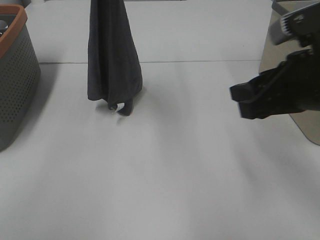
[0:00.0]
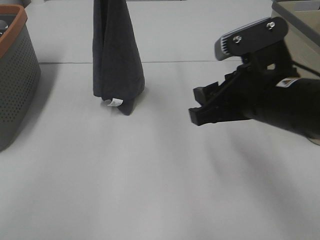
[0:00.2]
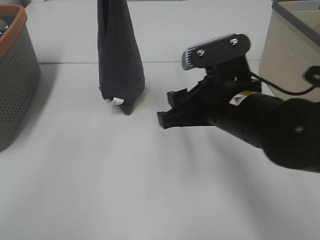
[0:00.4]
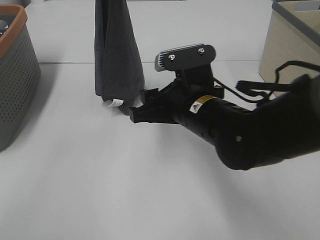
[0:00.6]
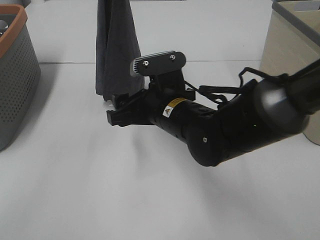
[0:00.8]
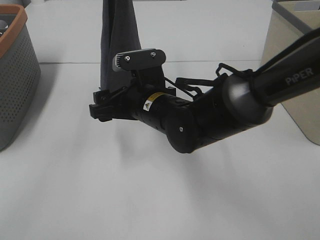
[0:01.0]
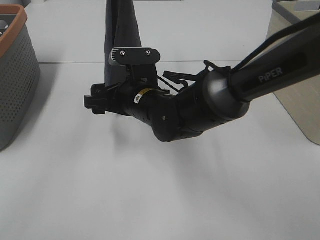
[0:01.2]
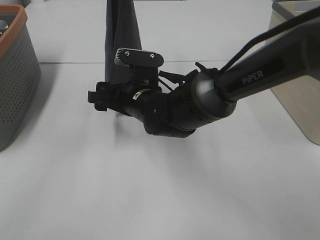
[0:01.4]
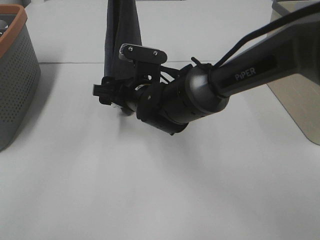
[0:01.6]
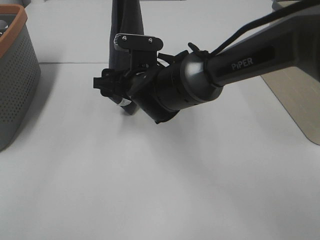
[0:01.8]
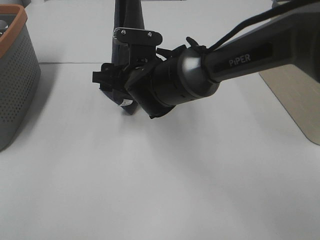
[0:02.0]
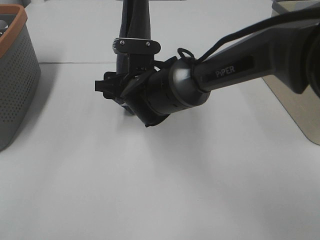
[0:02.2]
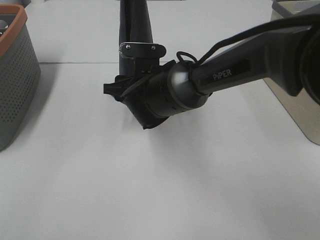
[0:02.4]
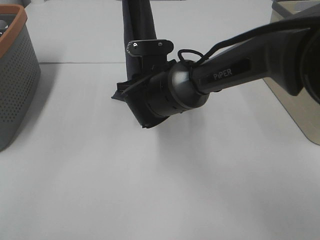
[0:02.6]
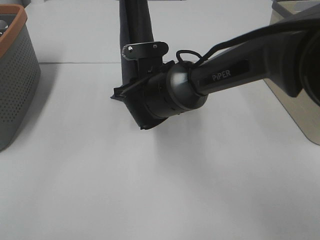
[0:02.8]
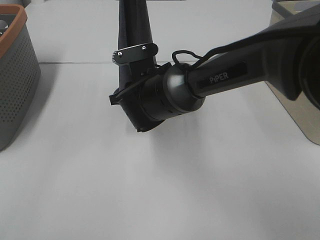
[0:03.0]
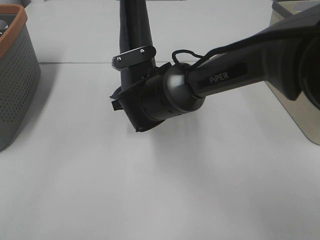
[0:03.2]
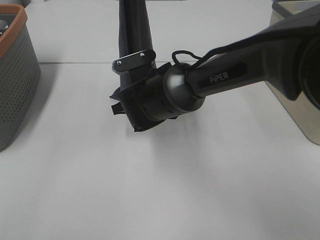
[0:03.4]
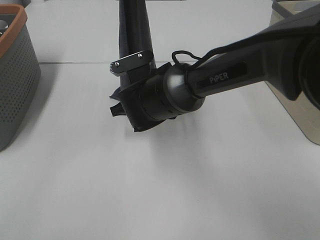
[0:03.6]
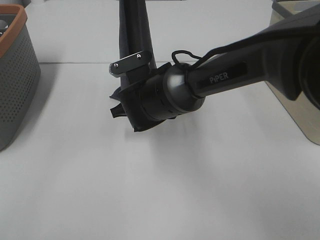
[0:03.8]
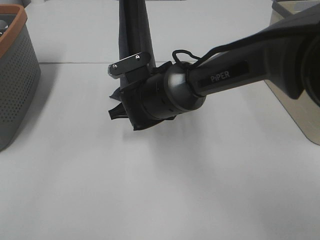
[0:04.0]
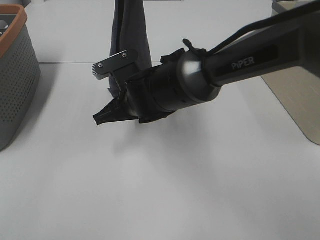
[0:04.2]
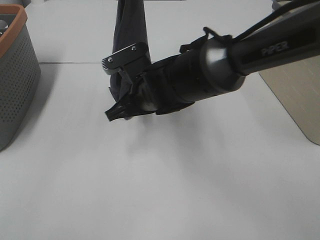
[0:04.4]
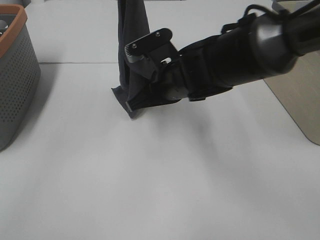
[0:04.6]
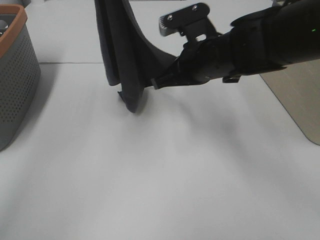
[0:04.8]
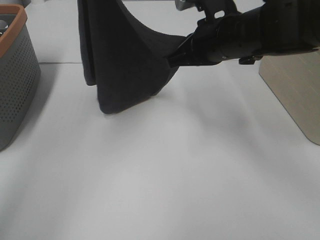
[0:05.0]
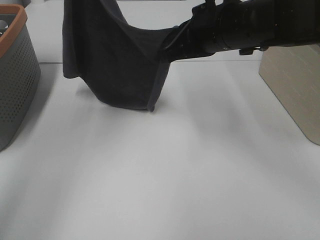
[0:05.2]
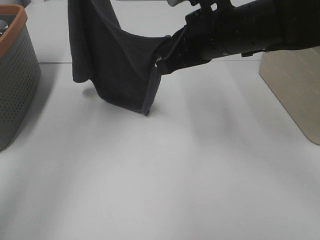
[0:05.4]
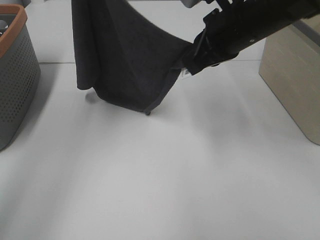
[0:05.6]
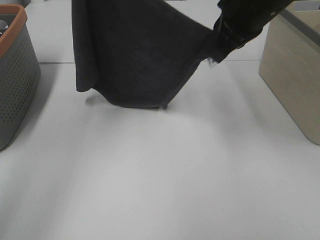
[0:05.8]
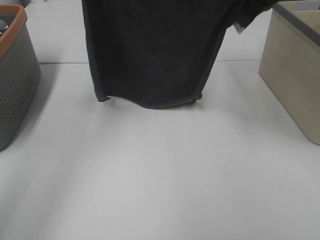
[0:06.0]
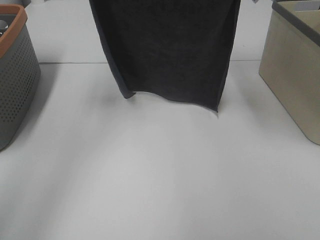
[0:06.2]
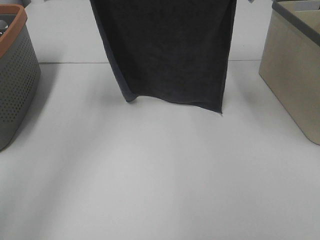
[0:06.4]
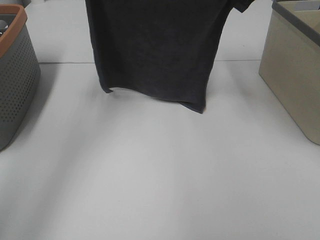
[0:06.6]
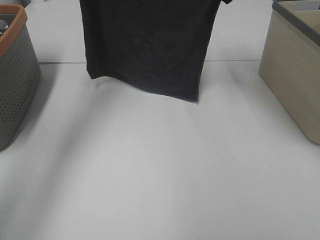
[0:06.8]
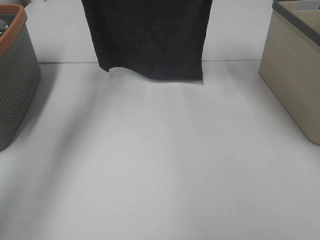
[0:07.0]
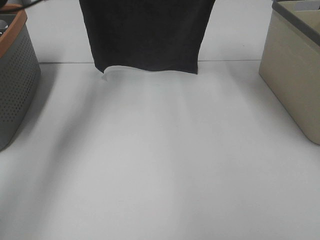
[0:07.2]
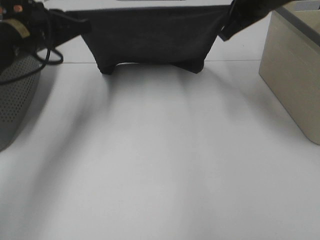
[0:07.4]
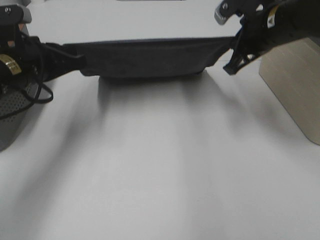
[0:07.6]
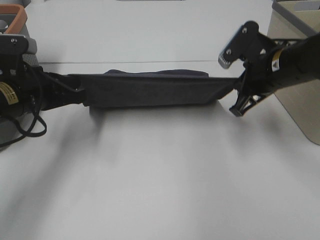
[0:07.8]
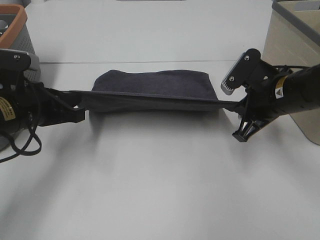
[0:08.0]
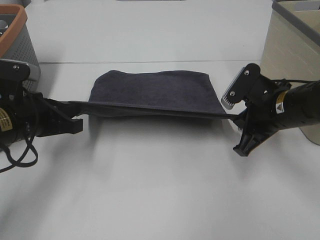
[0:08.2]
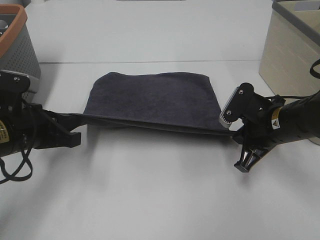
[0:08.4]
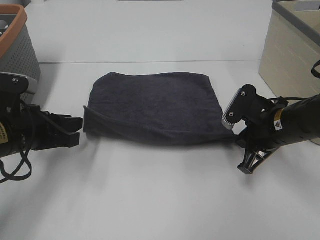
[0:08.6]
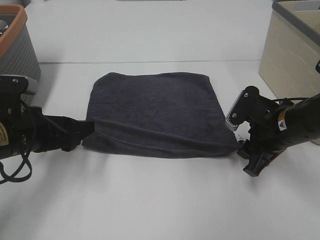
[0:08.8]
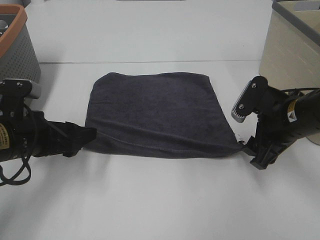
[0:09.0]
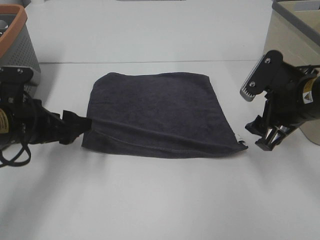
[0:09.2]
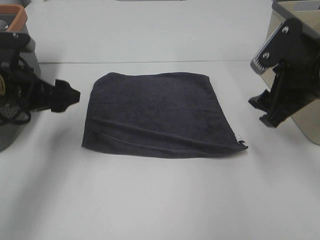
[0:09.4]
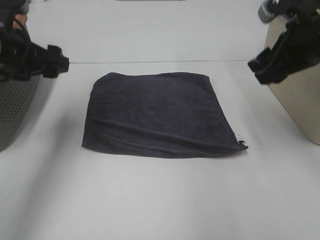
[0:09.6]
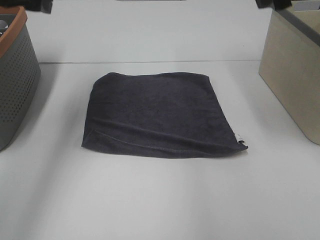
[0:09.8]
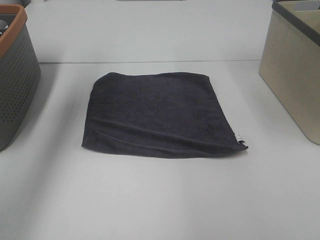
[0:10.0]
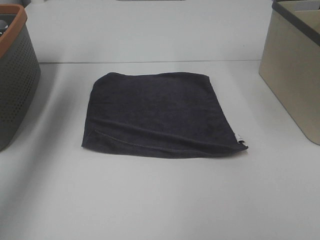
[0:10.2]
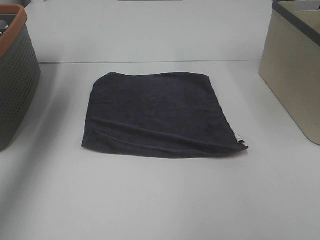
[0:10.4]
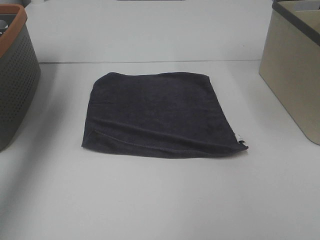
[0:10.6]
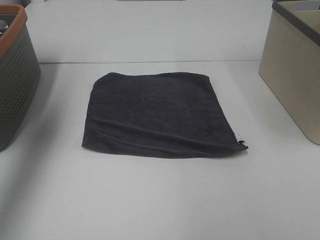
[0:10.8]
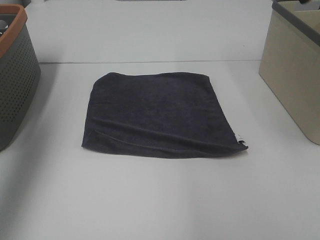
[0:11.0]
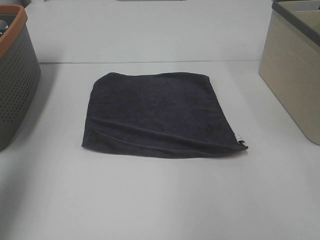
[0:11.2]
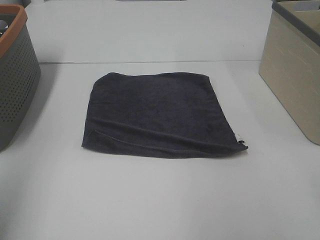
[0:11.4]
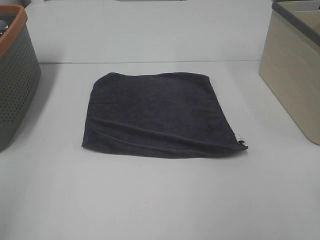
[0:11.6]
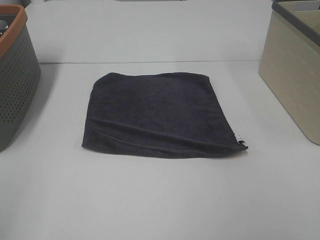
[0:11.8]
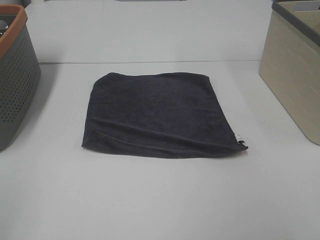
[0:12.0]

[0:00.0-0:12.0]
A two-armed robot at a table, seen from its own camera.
Task of the whole recording: Remove the towel and place it.
Step, 0:00.0 to 0:02.8: Right hand: grab a corner of the grey towel and straighten it.
Step, 0:03.0 to 0:04.6: Right hand: spread the grey towel flat on the table.
0:00.0 to 0:01.6: The right gripper is displaced to the left, forward and downward by roughly 25 cm.
0:03.0 to 0:04.4: The right gripper closes.
0:04.4 to 0:06.0: The right gripper shifts some 25 cm upward and to the right. Meanwhile the left gripper shifts roughly 15 cm to the left.
0:06.0 to 0:07.6: The left gripper travels downward by approximately 20 cm. Meanwhile the right gripper moves downward, some 10 cm.
0:07.6 to 0:09.0: The right gripper moves downward and backward, some 15 cm, and opens up; the left gripper goes about 10 cm backward and downward, and opens up.
0:09.0 to 0:10.4: The right gripper travels upward by about 30 cm; the left gripper moves upward and forward, approximately 35 cm.
0:10.4 to 0:12.0: The left gripper goes some 35 cm backward.

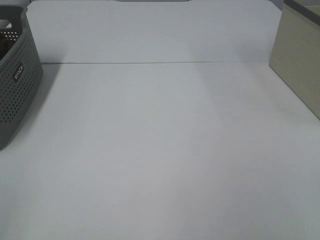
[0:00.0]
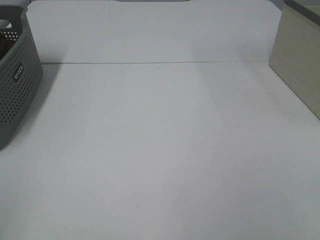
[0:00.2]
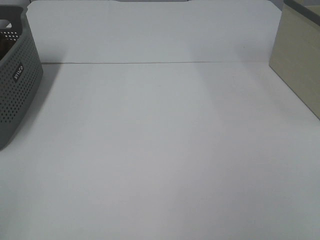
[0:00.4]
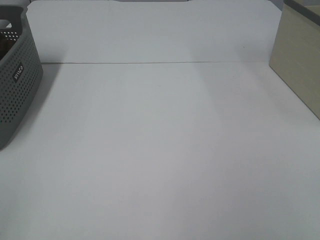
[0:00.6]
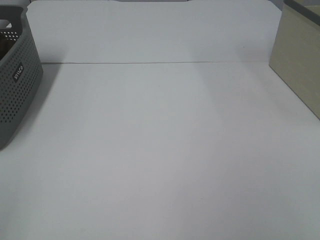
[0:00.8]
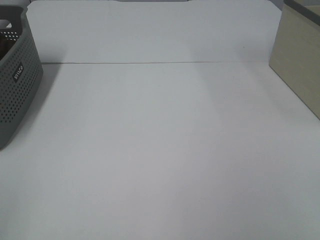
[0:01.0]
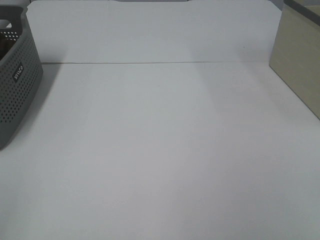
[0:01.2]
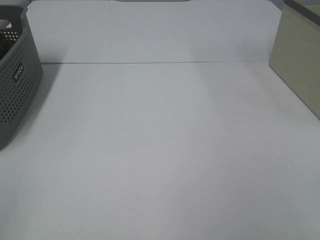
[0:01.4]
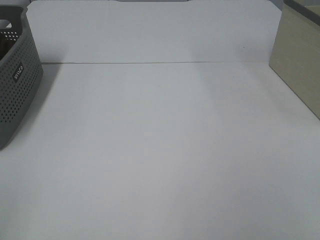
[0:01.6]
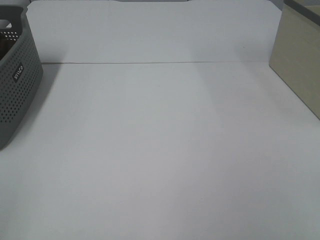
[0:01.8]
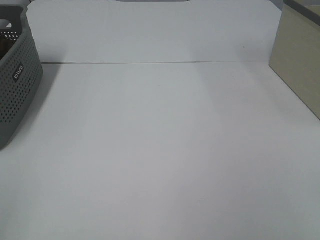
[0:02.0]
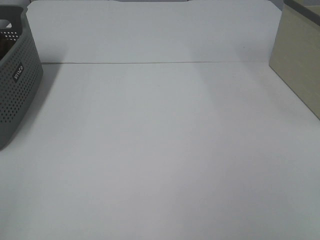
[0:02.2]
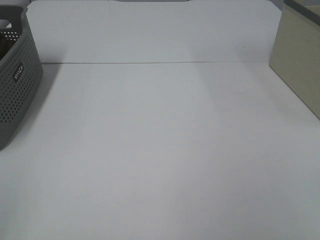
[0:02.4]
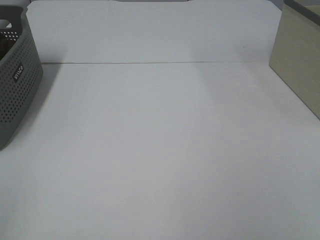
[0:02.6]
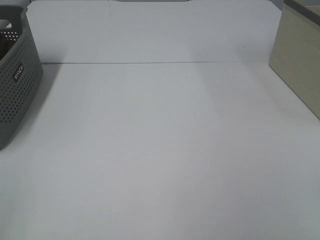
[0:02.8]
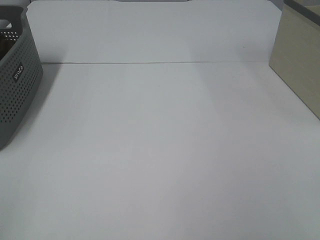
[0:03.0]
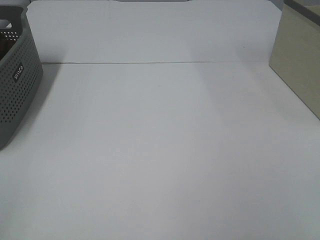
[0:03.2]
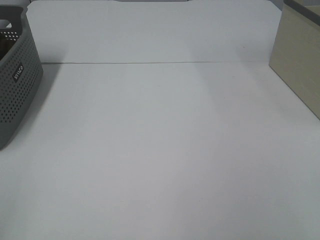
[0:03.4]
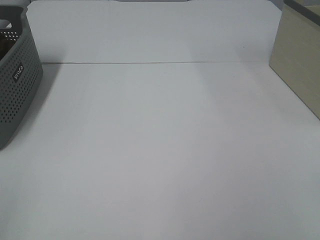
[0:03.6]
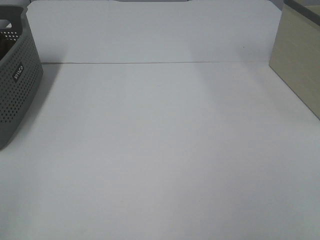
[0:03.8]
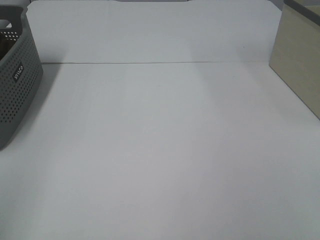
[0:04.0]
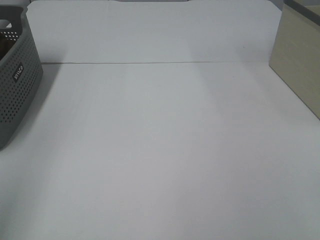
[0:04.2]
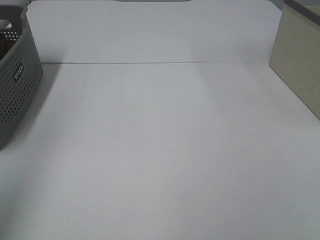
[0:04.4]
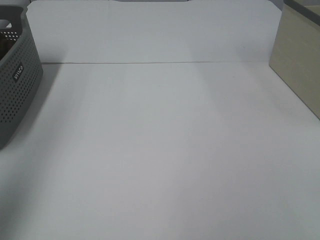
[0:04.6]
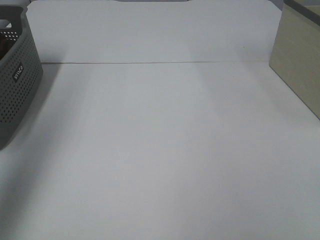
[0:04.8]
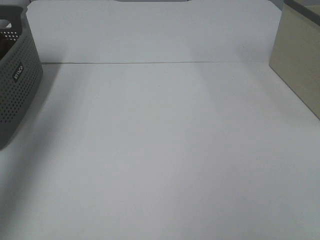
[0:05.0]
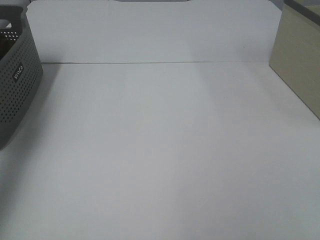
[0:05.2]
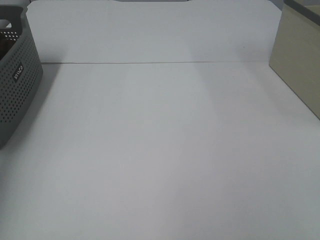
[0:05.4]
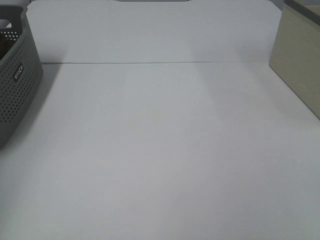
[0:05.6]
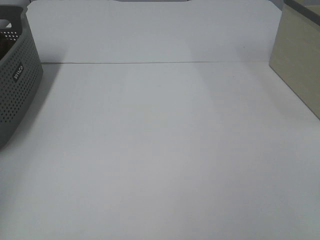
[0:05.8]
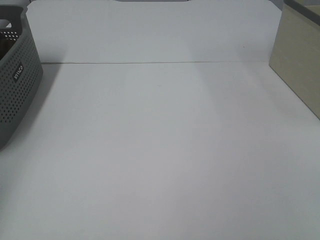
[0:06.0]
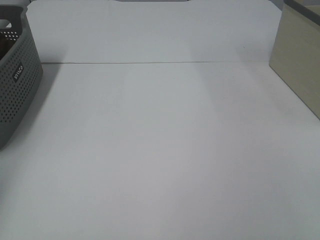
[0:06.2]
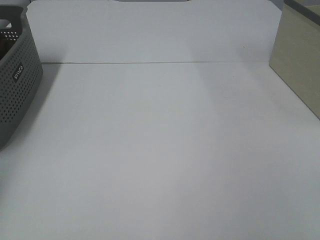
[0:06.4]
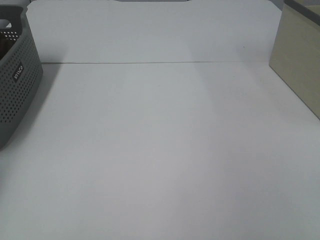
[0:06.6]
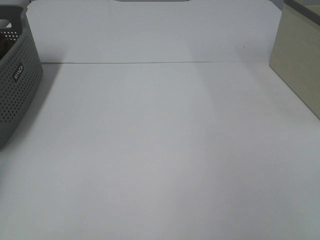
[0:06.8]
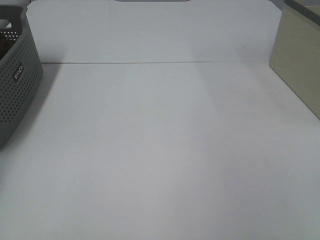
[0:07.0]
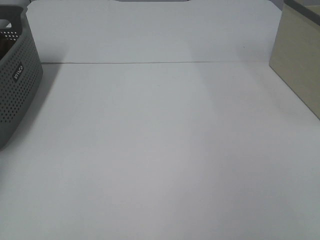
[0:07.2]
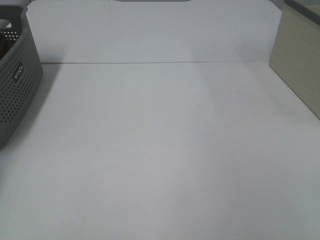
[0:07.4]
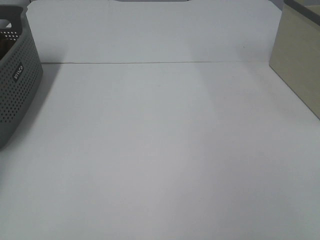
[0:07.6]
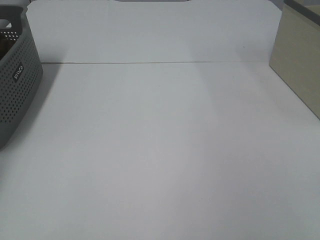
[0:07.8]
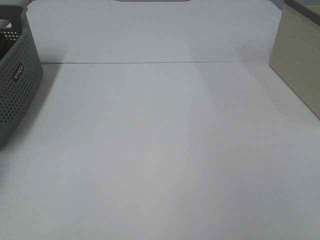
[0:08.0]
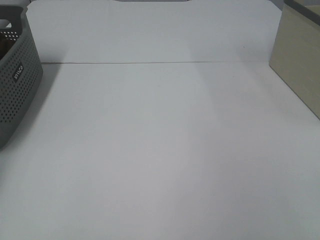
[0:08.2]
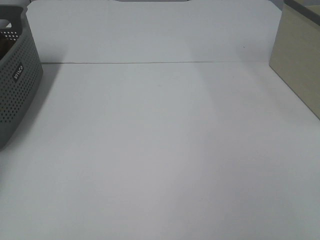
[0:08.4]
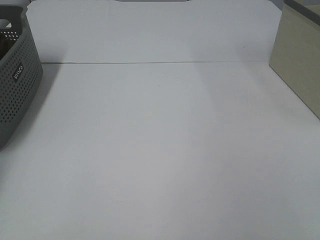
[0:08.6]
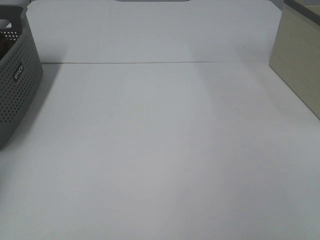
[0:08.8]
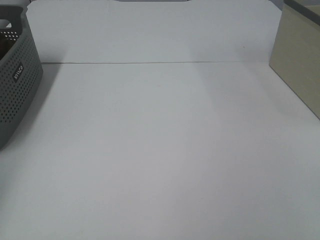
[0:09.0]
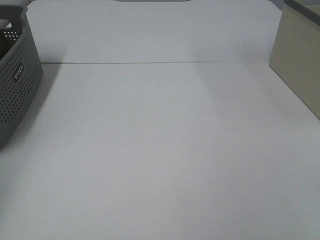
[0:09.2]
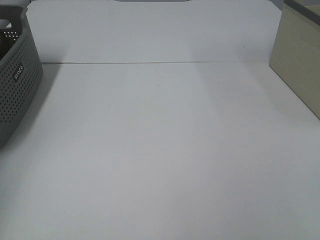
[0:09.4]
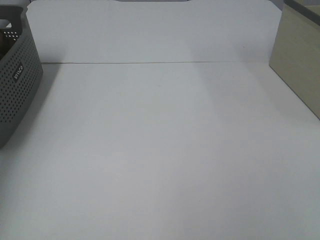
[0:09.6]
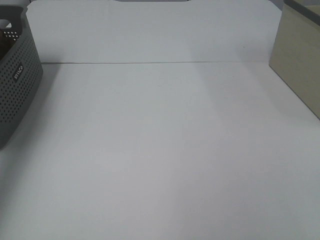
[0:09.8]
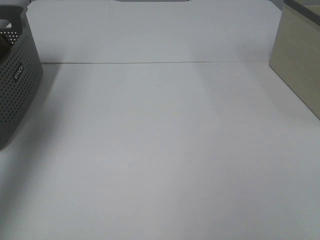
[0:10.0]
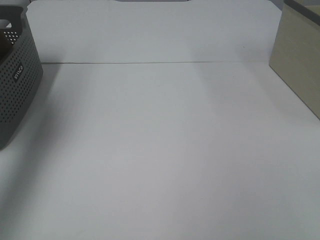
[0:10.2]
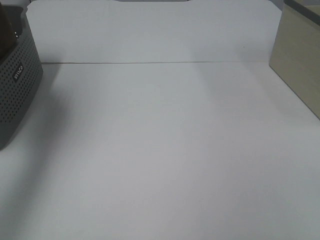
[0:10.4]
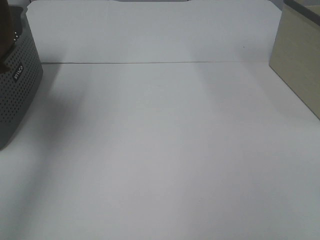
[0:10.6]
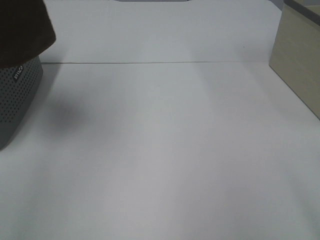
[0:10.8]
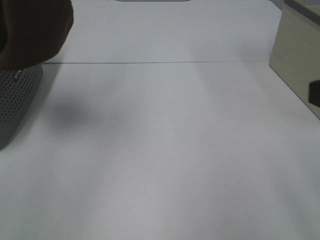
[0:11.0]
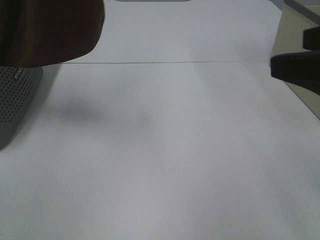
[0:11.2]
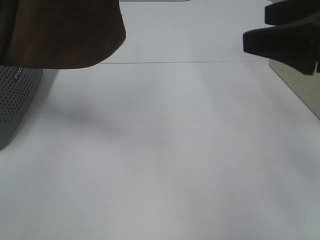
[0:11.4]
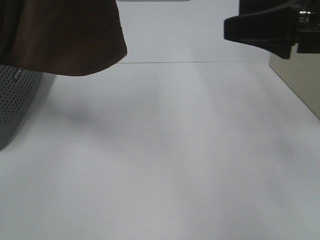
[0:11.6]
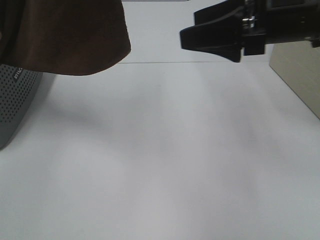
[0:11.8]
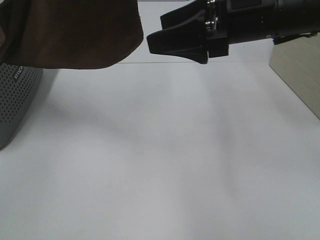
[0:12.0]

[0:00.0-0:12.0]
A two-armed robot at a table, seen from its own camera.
Task of the whole recording: Remove the towel and place it.
0:00.0 to 0:03.0: Both grippers stay put.
0:03.0 to 0:04.4: The left gripper is displaced upward and forward by some 15 cm.
0:04.4 to 0:06.0: The left gripper is displaced forward, to the left and downward by some 30 cm.
0:09.0 to 0:10.4: The left gripper is displaced upward, to the right and backward by roughly 30 cm.
0:10.4 to 0:12.0: The right gripper shifts approximately 35 cm forward and to the left. The left gripper goes some 15 cm to the right.
